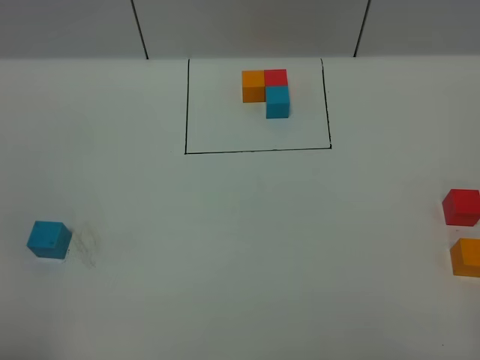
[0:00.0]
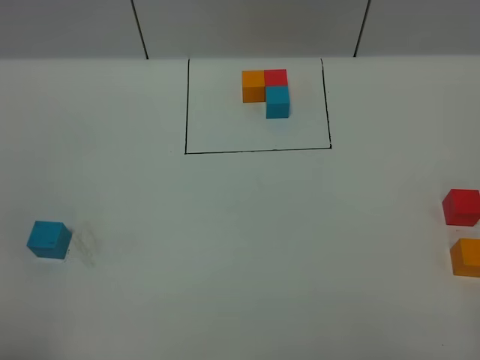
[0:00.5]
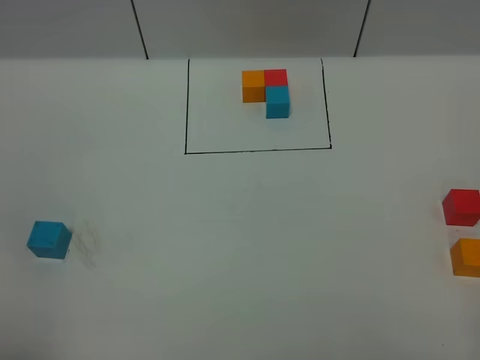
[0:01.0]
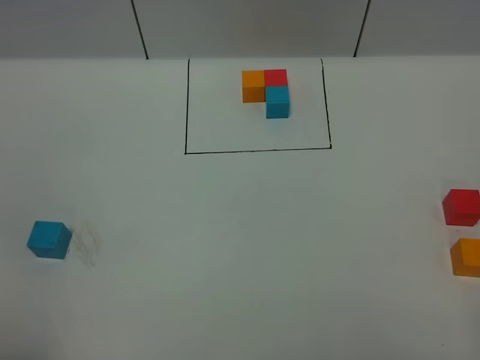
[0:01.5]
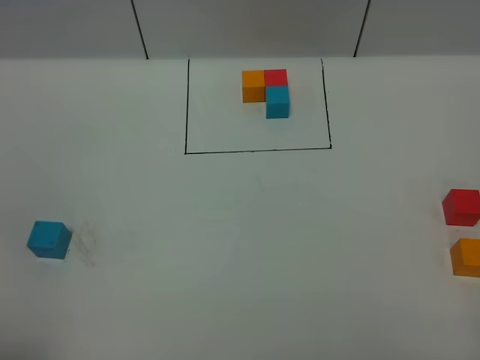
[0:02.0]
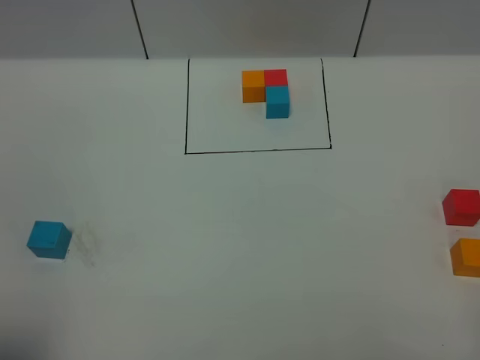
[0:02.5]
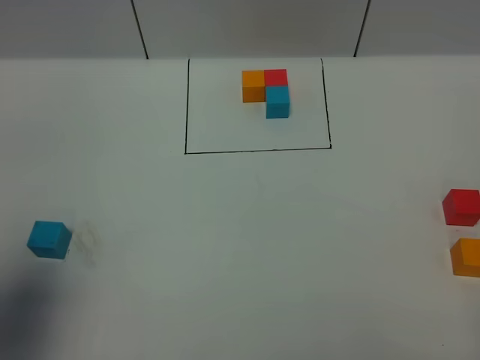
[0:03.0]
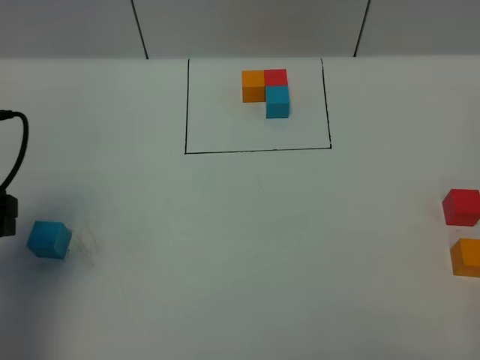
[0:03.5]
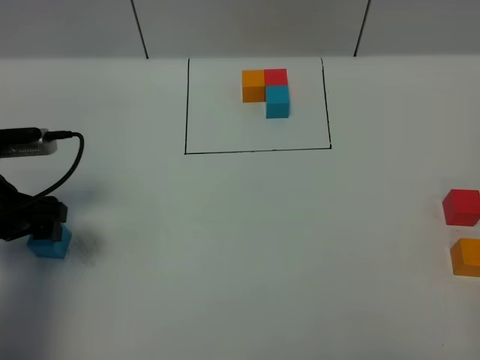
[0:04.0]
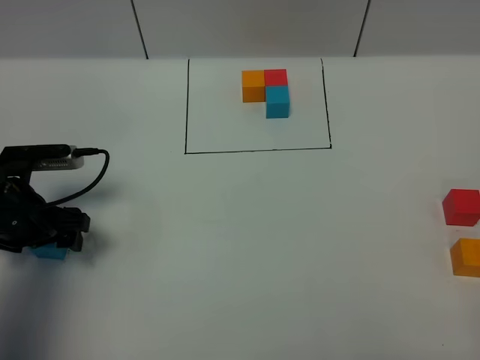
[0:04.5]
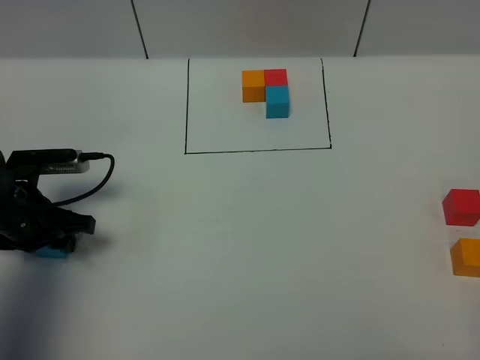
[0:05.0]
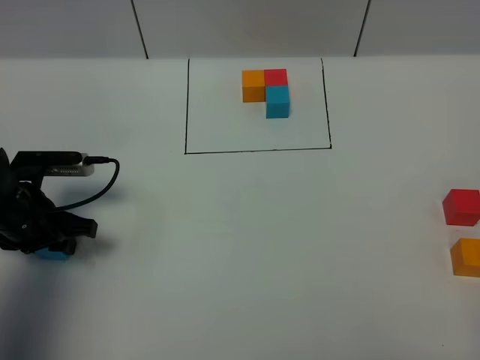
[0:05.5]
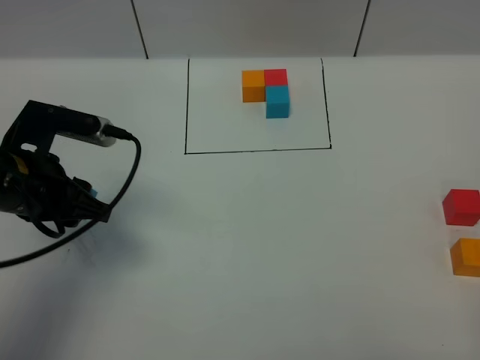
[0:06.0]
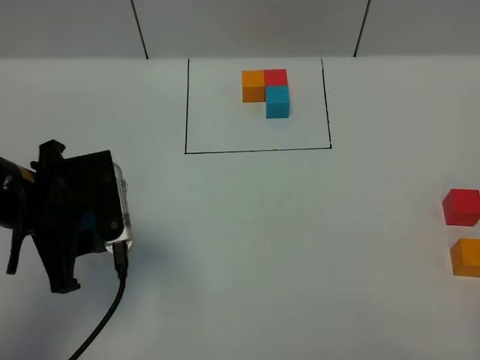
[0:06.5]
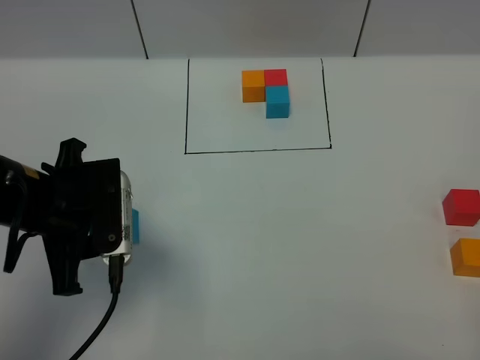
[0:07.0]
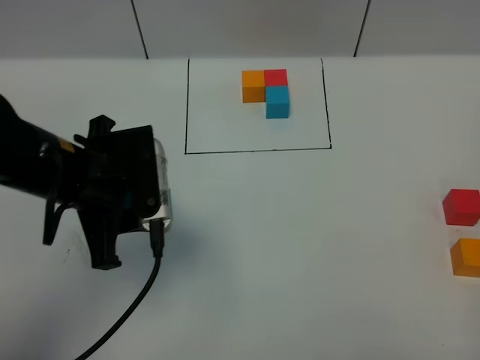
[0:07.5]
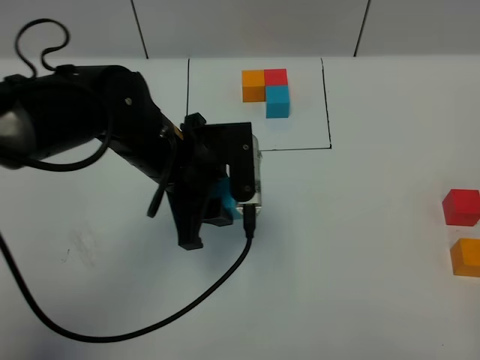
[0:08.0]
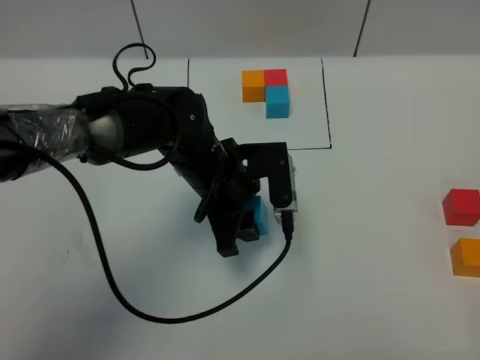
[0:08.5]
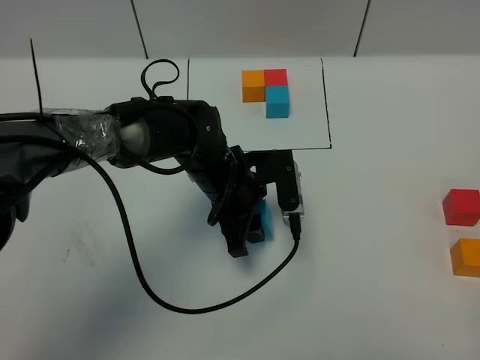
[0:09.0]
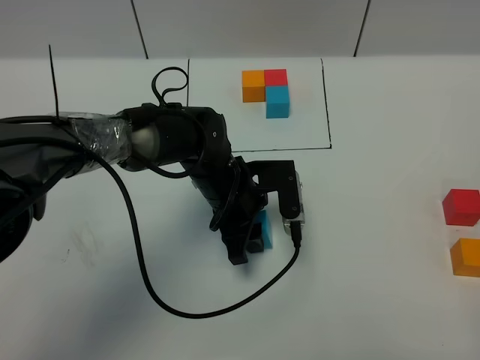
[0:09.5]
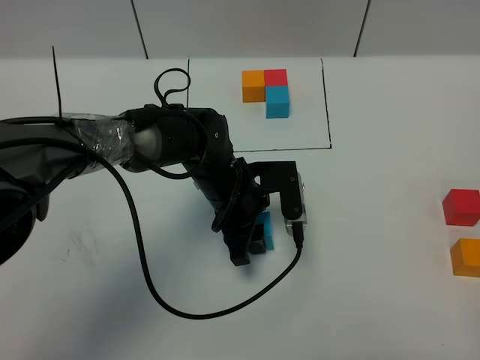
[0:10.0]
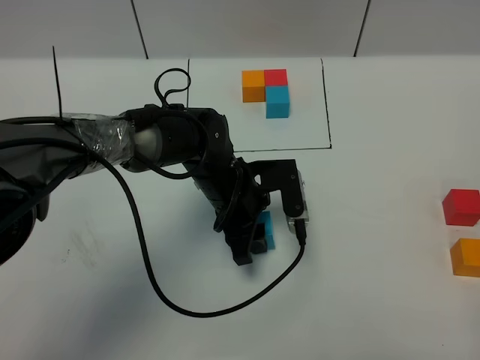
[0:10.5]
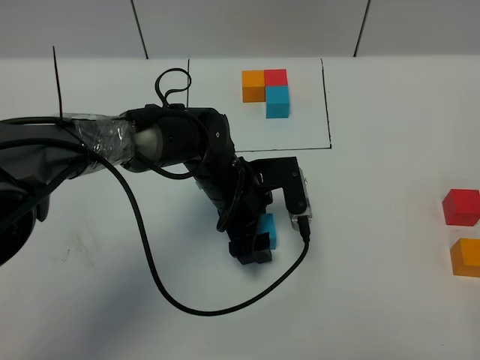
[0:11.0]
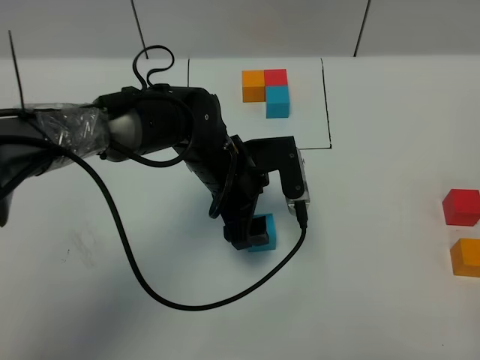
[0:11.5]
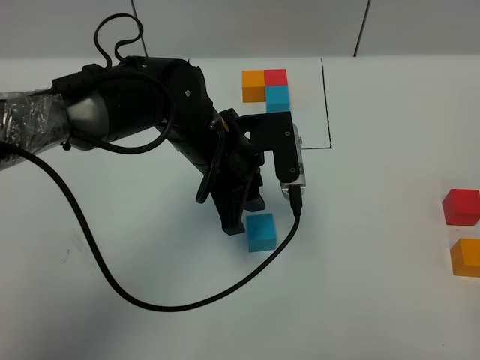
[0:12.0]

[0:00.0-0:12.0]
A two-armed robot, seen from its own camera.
Task of the whole recording: According to the building block template in front, assemble the scattered blocks together.
Step, 0:03.5 to 0:10.5: Put the blue cube in the center of the table.
0:02.0 to 0:04.0: The left gripper shifts approximately 25 cm forward.
0:04.0 to 0:06.0: The left gripper heads to the right, covering approximately 5 cm, and closes its fingers.
0:06.0 to 0:08.0: The left gripper is displaced to the right by about 15 cm.
0:08.0 to 0:10.0: The left gripper heads downward, covering approximately 10 cm.
0:10.0 to 0:12.0: The left gripper travels upward by some 10 cm, and opens, then closes again.

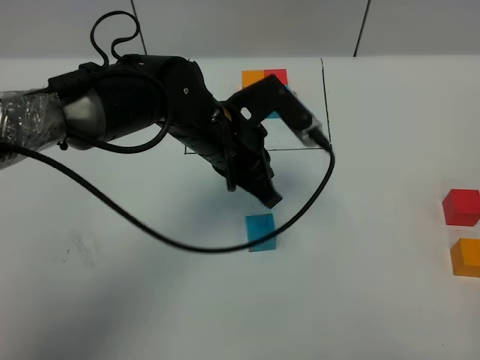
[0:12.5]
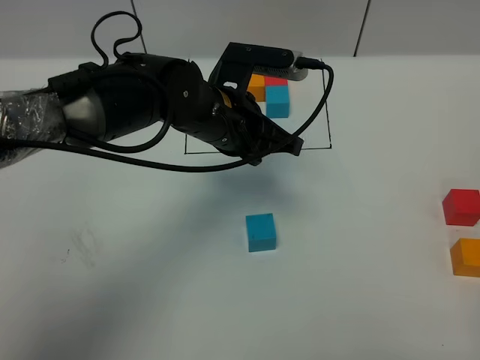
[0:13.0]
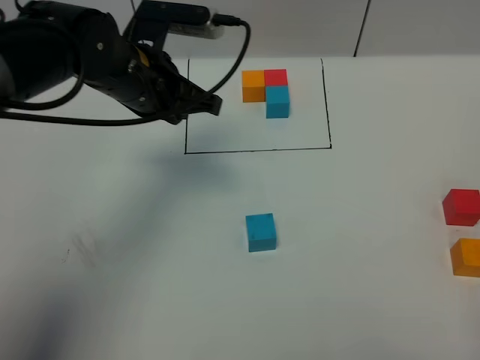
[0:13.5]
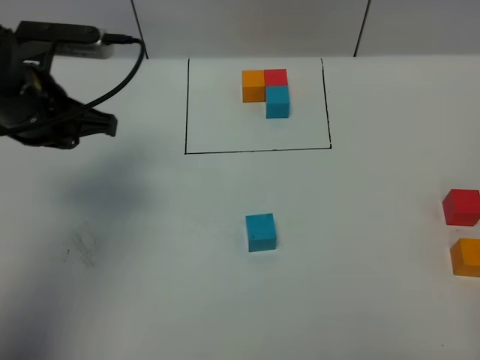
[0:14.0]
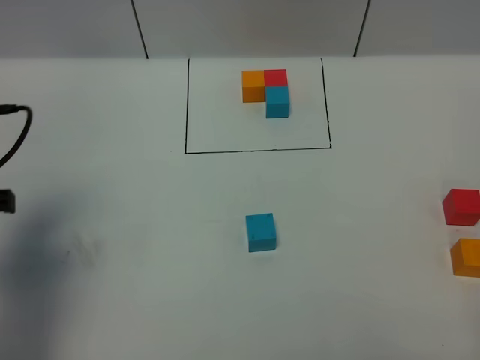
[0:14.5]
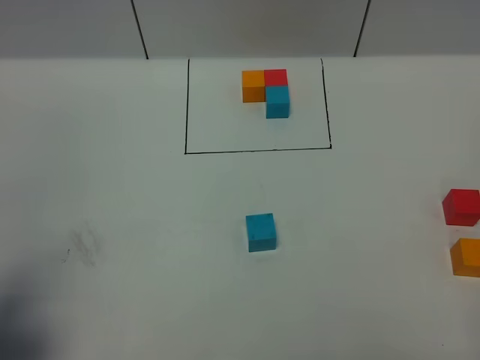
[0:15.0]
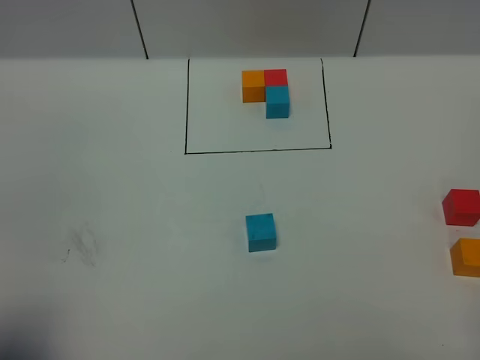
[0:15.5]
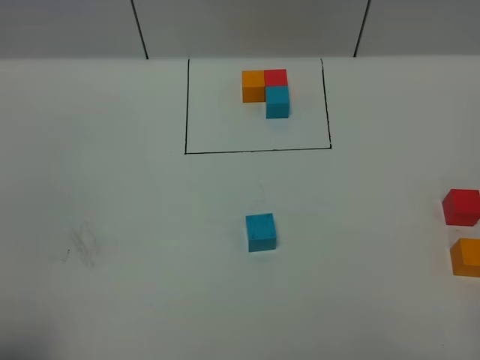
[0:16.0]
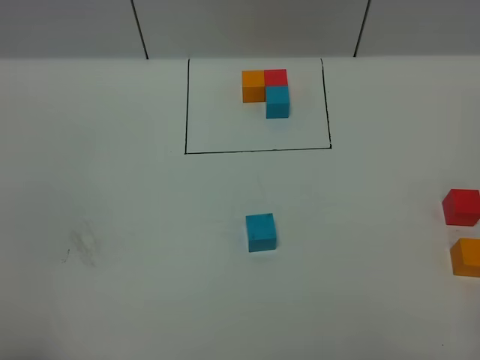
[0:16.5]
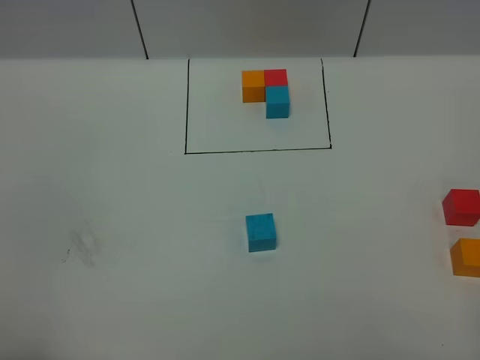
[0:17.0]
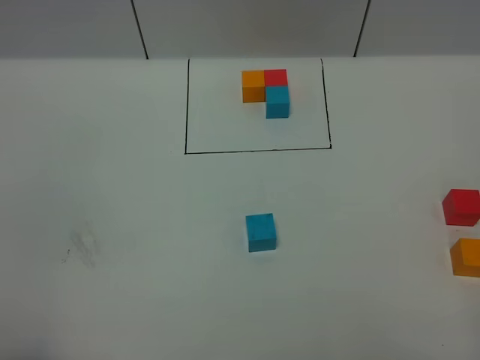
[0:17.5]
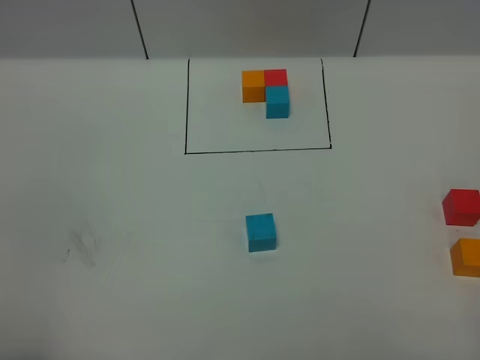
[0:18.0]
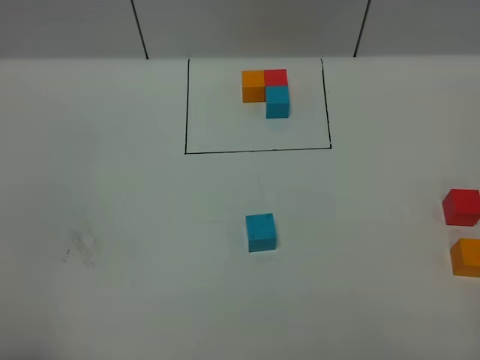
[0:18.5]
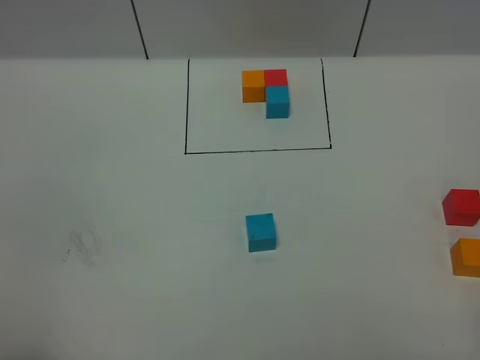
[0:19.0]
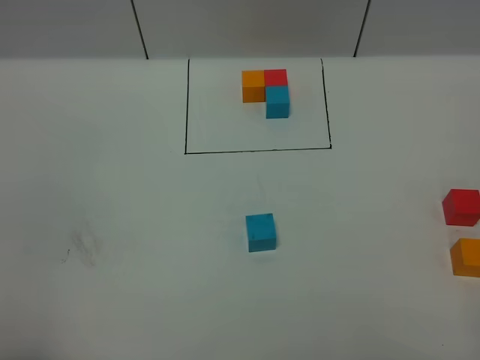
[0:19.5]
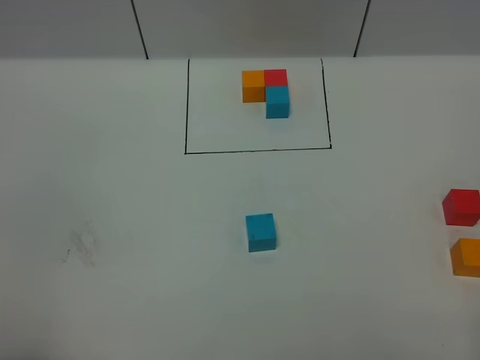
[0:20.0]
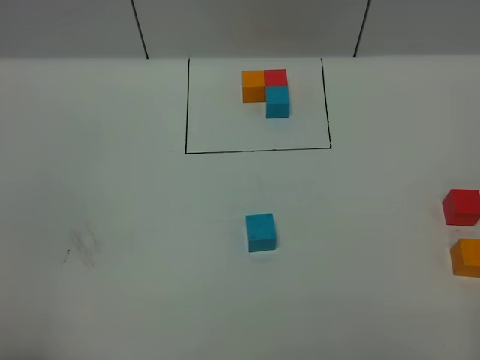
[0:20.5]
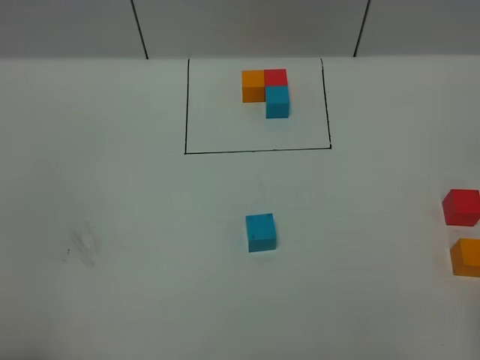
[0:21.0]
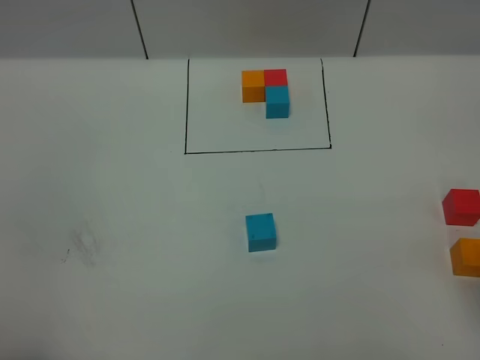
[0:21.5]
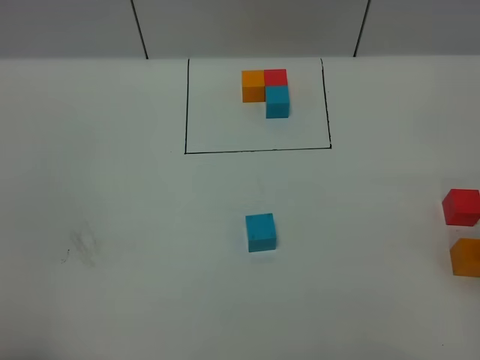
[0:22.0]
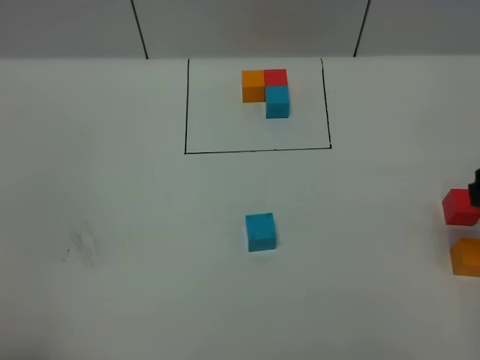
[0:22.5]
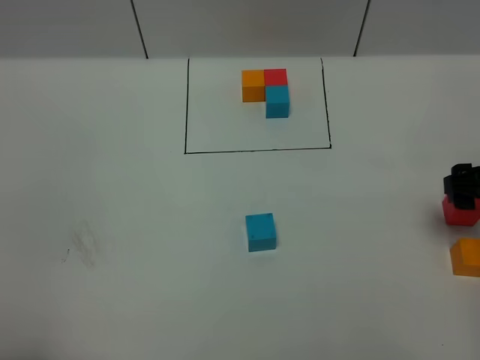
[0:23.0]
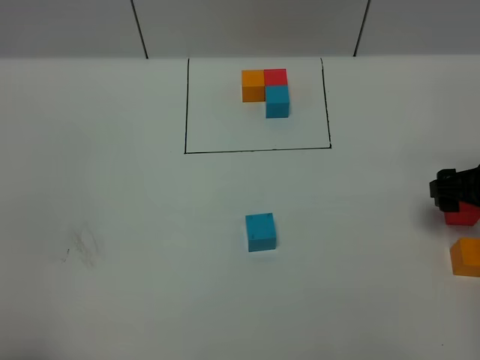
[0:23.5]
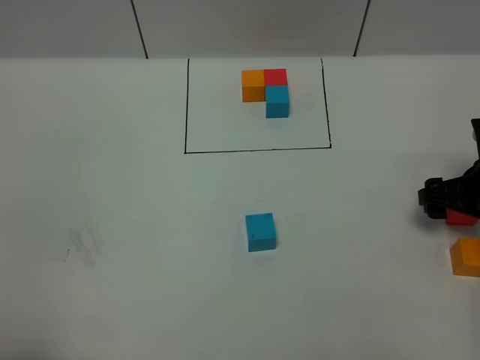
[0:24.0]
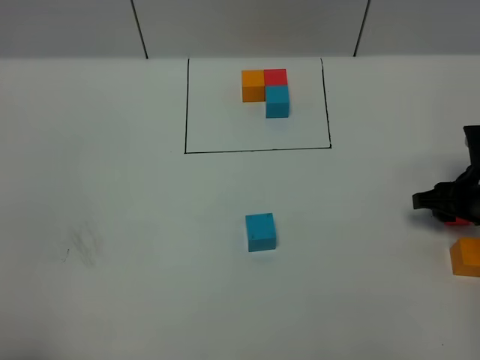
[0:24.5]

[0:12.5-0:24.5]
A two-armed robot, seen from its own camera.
Task of the whole recording: According to the building block template in front, assemble the scattered blocks together.
0:12.5 to 0:14.5: The left gripper shifts roughly 30 cm to the left and backward.
0:14.5 to 0:16.5: The left gripper shifts some 20 cm backward.
0:16.5 to 0:18.5: Both grippers stay put.
0:22.5 to 0:24.5: The right gripper goes some 15 cm downward and forward, and closes.

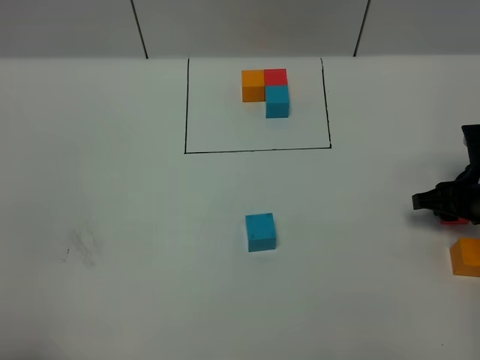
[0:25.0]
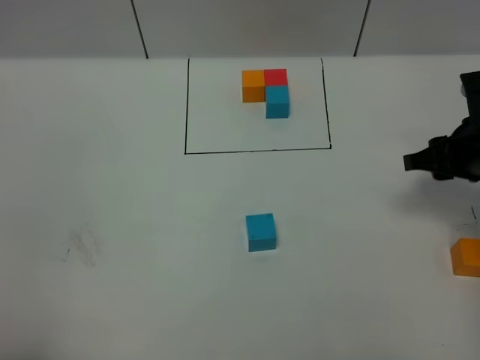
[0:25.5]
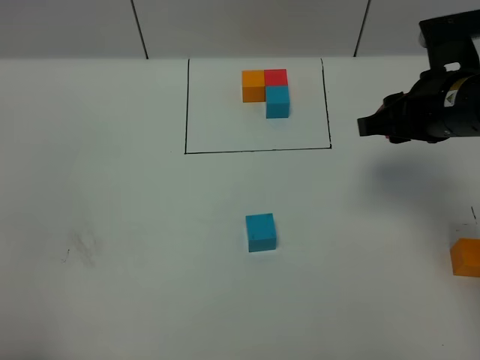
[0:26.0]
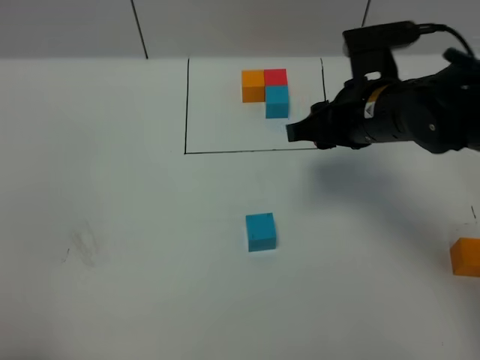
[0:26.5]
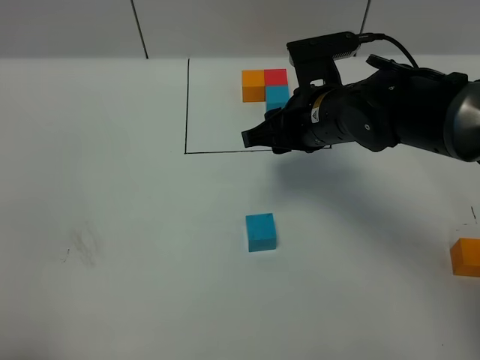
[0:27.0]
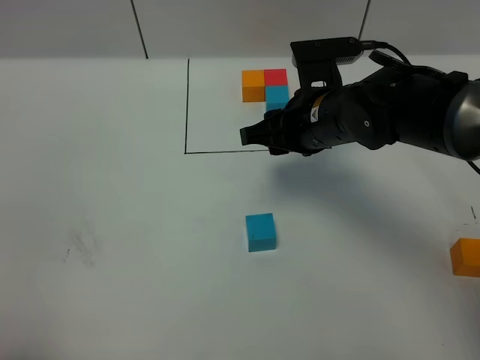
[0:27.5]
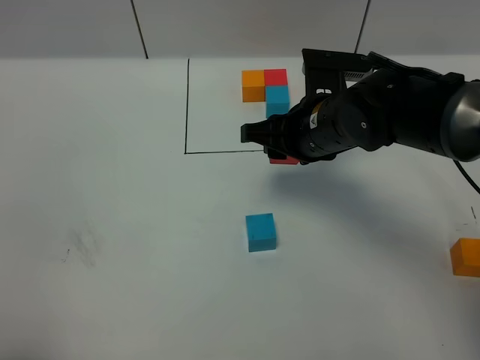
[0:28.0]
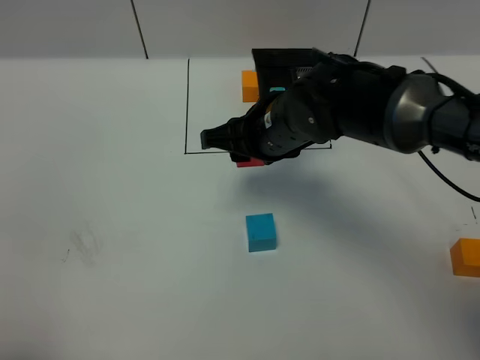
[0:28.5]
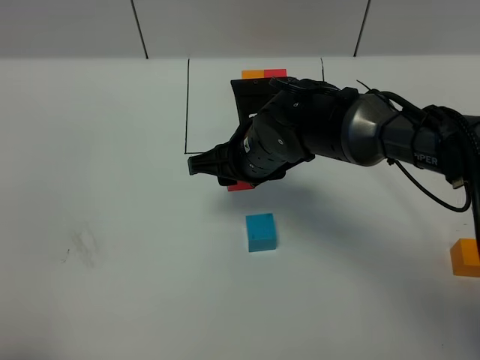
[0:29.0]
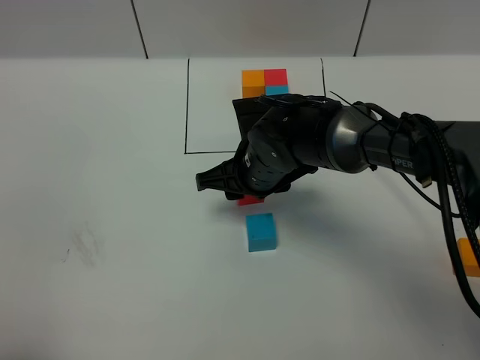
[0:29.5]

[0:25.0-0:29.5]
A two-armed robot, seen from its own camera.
Task of the whole recording: According to the building block template in front, assemble the scattered blocks together.
0:25.0 to 0:27.0: The right gripper is displaced to the left and upward by roughly 25 cm.
0:27.0 to 0:29.5: The right gripper heads downward and to the left, covering approximately 10 cm.
